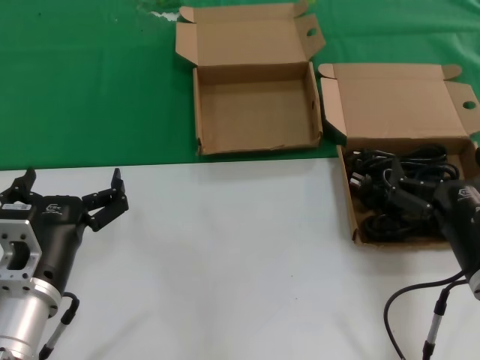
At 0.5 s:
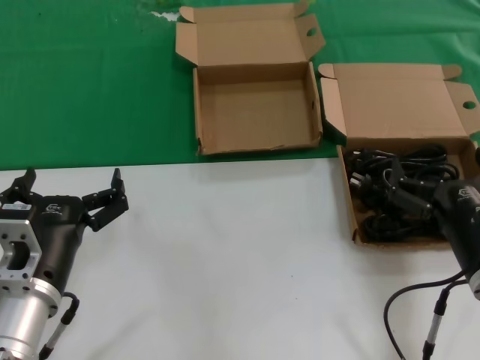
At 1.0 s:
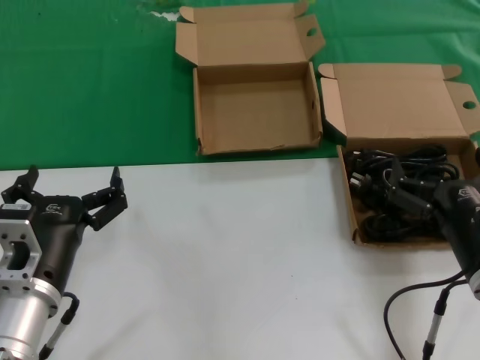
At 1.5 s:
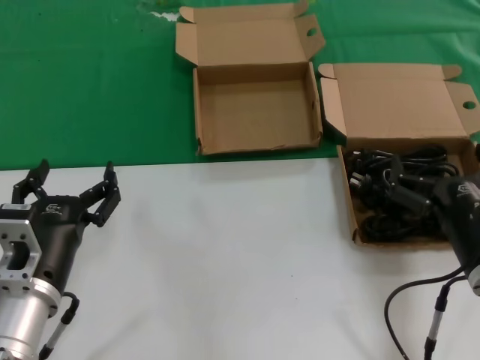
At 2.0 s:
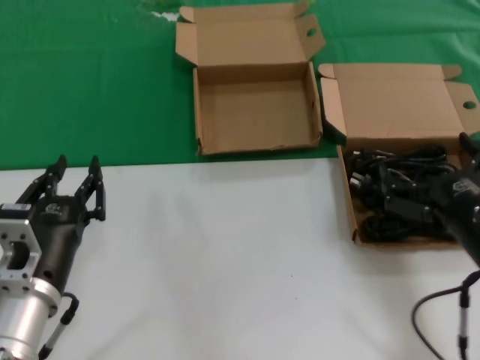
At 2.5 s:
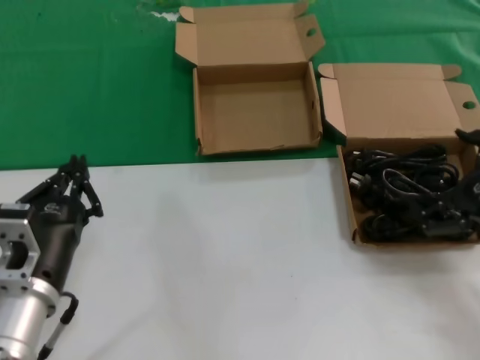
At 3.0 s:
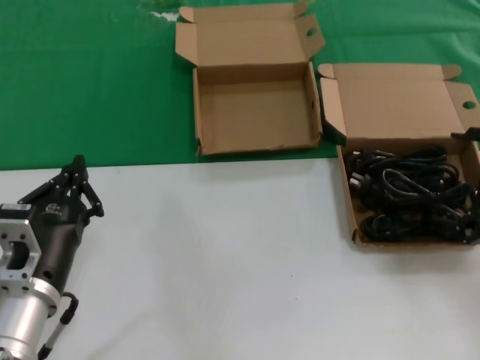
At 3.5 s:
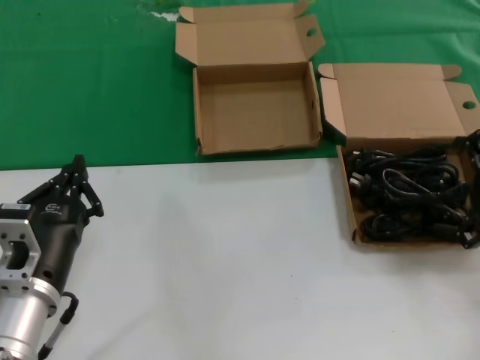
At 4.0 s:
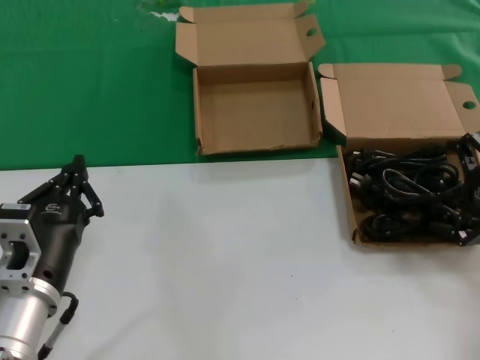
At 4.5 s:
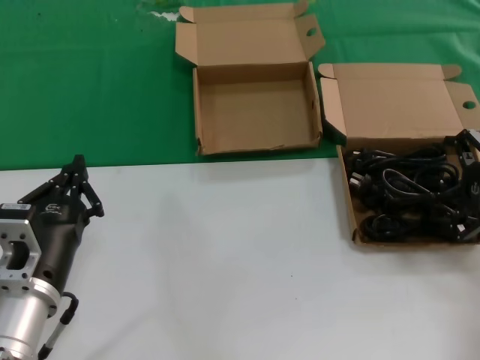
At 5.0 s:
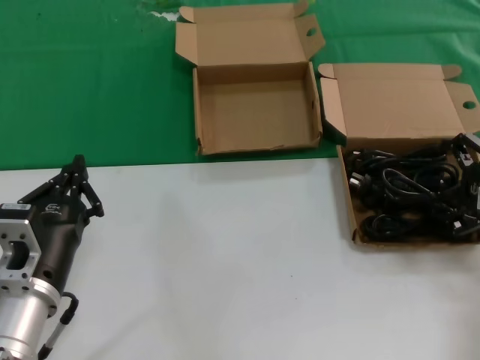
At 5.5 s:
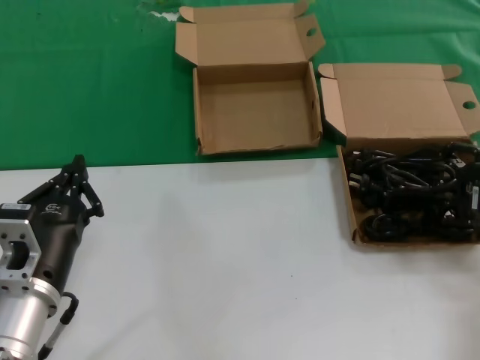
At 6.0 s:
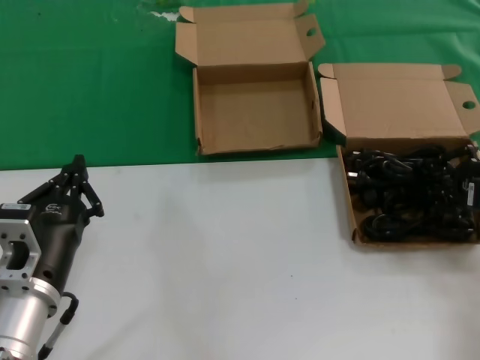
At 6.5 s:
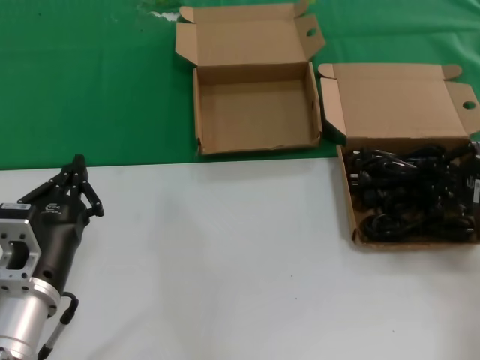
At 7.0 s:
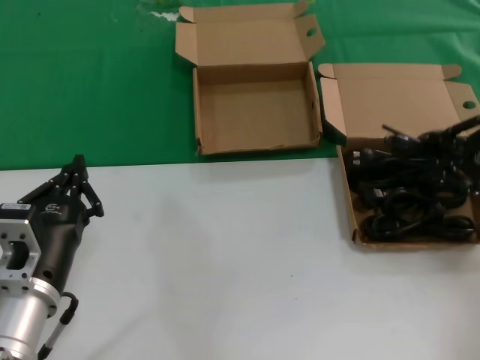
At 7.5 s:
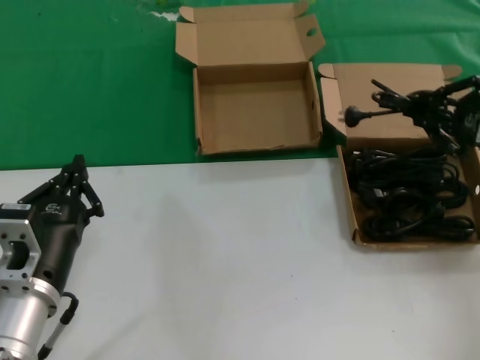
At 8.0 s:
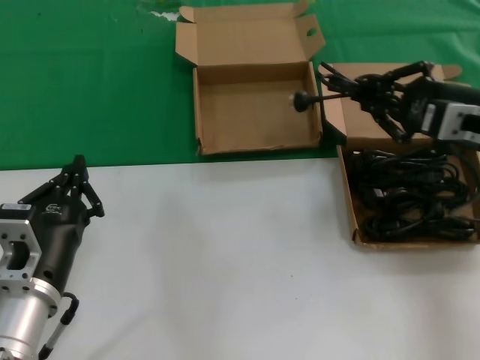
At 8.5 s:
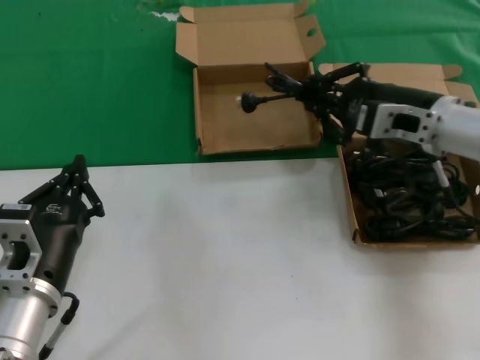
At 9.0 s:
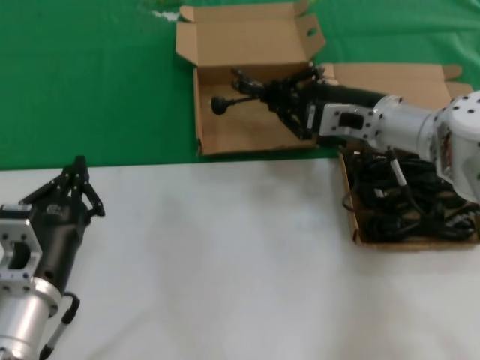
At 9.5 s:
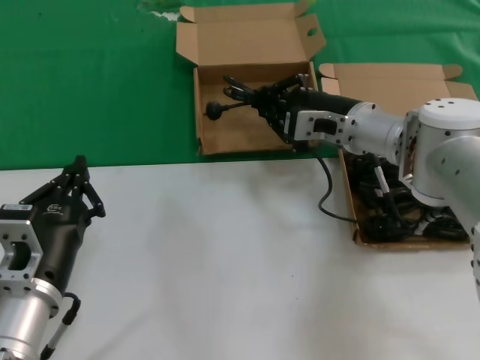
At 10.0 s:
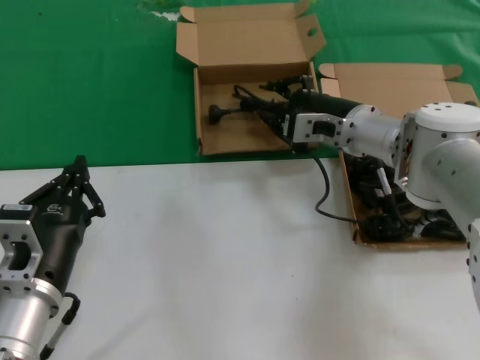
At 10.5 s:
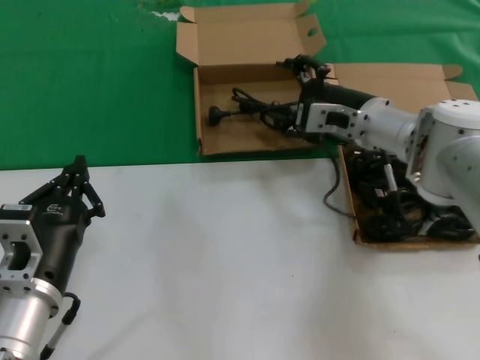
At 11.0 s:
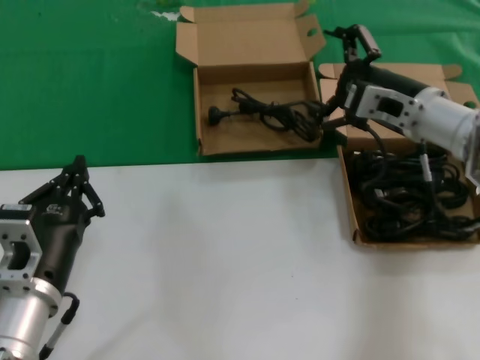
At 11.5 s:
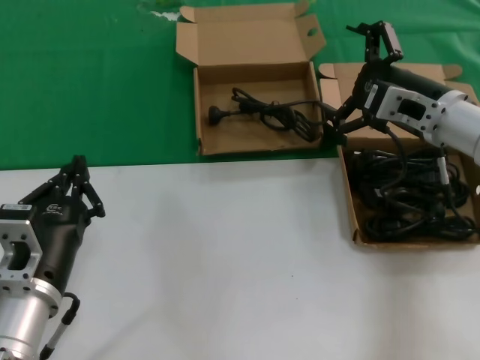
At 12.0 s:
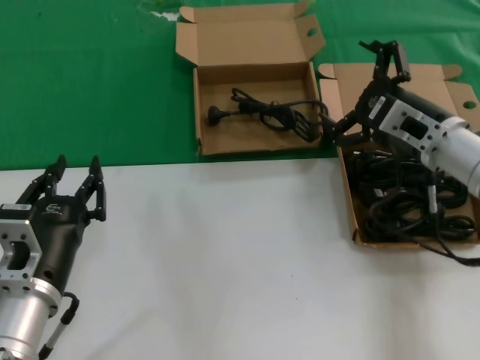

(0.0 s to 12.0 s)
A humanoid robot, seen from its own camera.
Task of the whole recording: take the parts from the box containing them and put them into an empty box.
Step, 0.0 s - 6.0 s: Grasp the data cable.
Step, 6.5 s - 10.0 s: Place the data cable in the another box.
0.0 s - 2.0 s: The hands move only a little.
2.0 s - 4.0 s: The right hand travels to the right, forward and upward by about 20 cm.
6.0 s - 8.0 s: The right hand shifts roughly 10 cm to the left and upward.
8.0 s - 10.0 s: The right hand shifts roughly 20 cm to the left, forward and downward.
10.0 s - 12.0 s: The right hand heads to the right and backward, covering some 10 cm.

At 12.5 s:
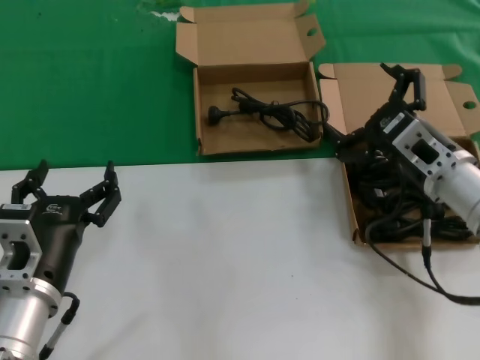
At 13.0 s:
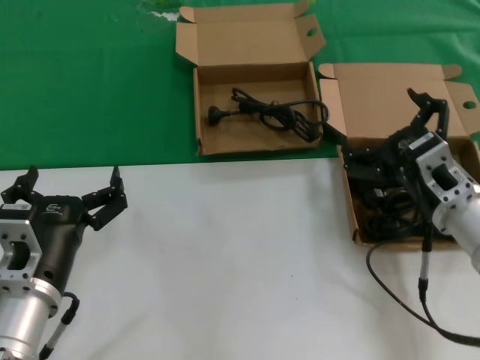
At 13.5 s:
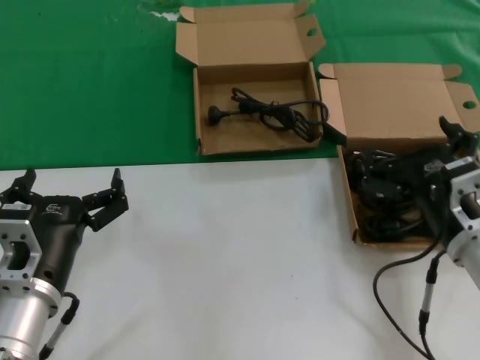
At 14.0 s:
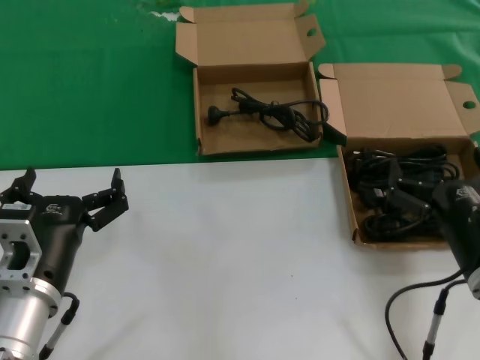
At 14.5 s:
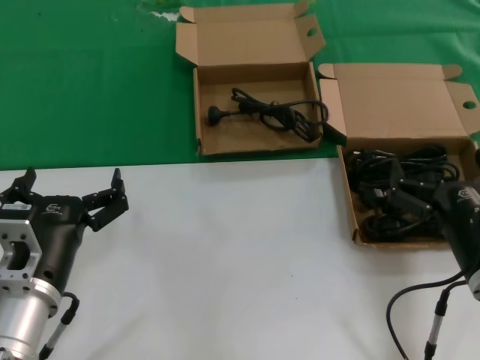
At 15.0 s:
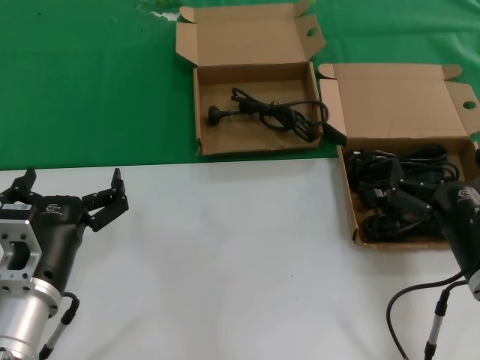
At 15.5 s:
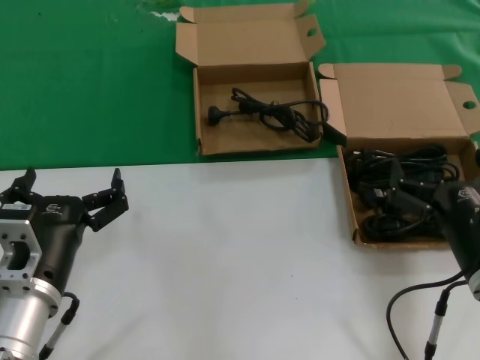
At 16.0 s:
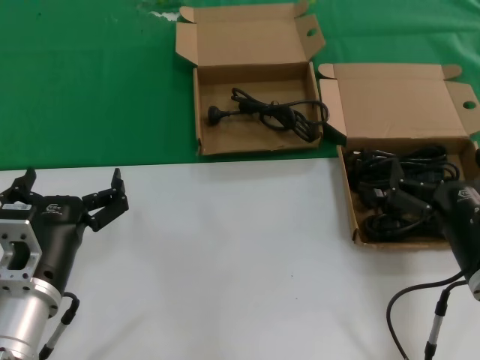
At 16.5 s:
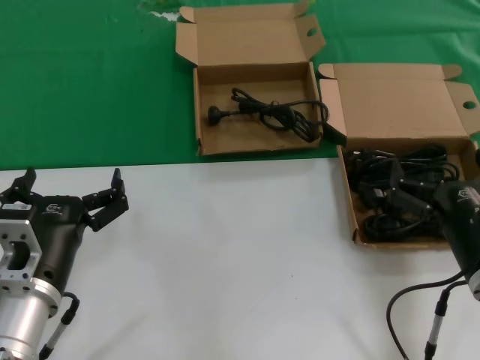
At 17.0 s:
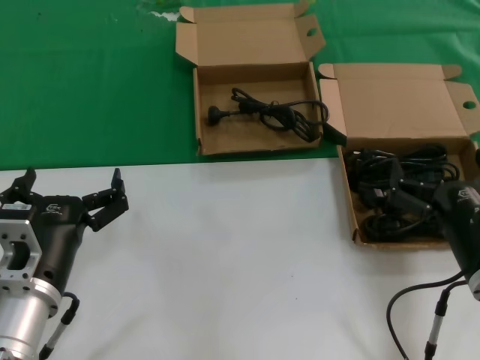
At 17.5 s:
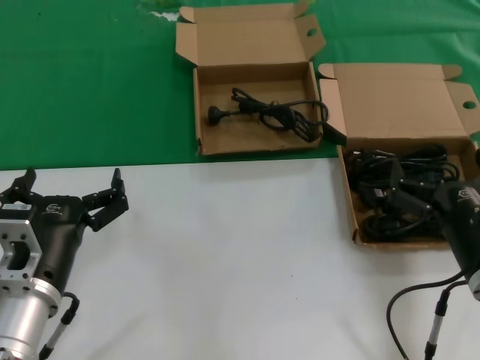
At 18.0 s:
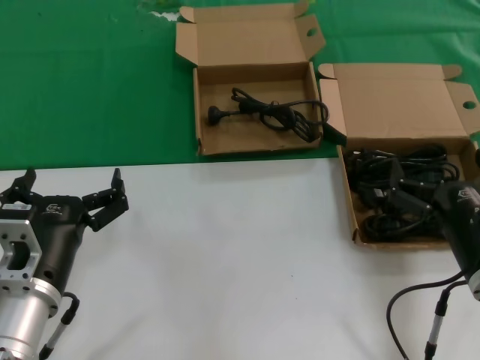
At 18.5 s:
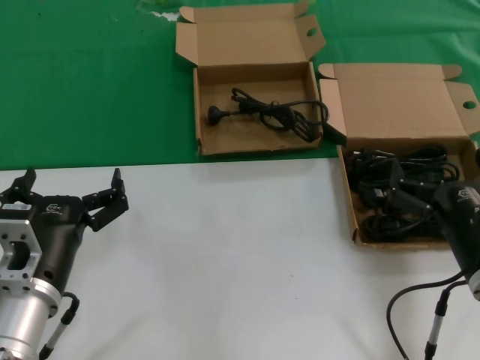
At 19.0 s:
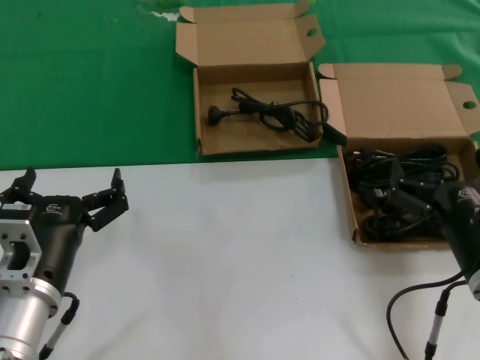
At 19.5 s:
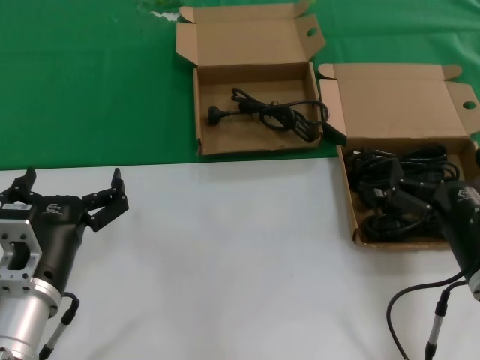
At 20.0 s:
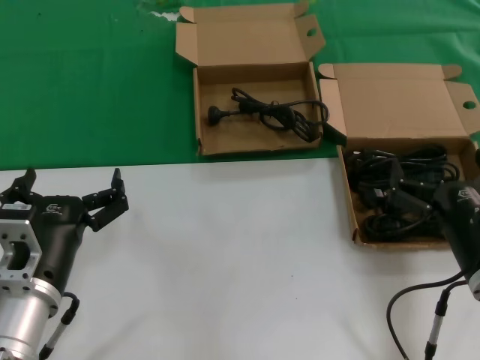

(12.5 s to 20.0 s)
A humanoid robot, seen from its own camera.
Task of the whole recording: take the parts from the box containing them and put them into an empty box.
12.5 s - 14.5 s: The right hand travels backward by roughly 15 cm.
14.5 s - 20.0 s: Neither hand changes place.
